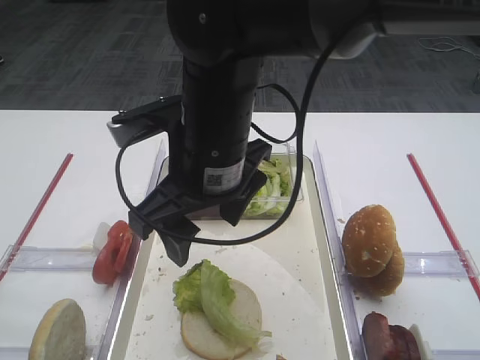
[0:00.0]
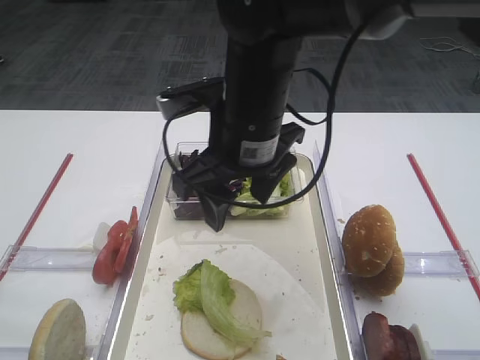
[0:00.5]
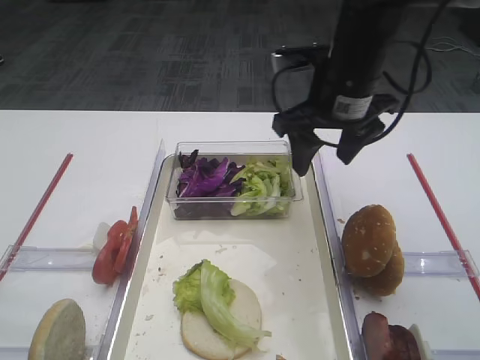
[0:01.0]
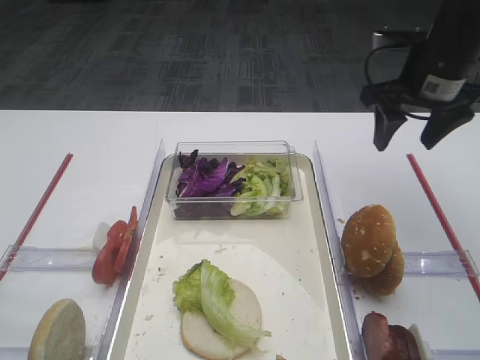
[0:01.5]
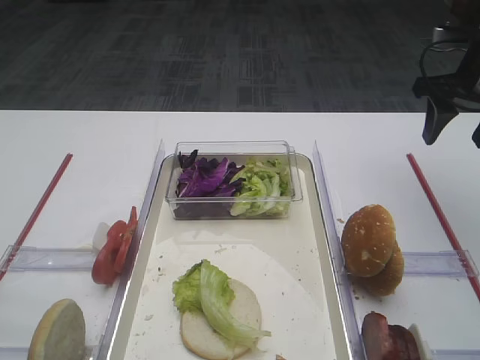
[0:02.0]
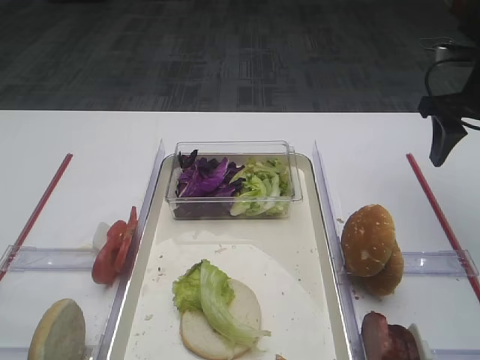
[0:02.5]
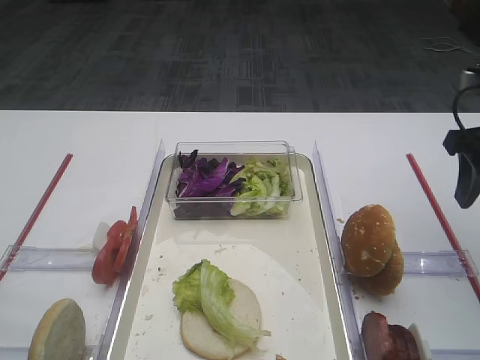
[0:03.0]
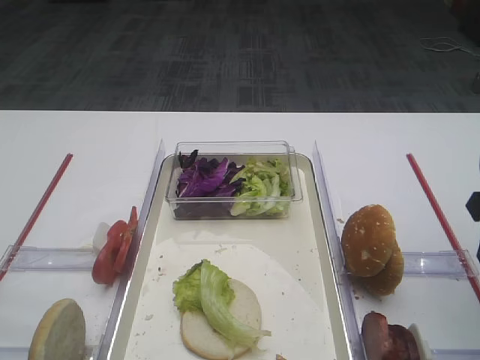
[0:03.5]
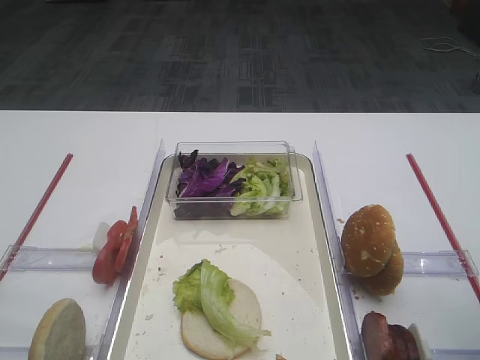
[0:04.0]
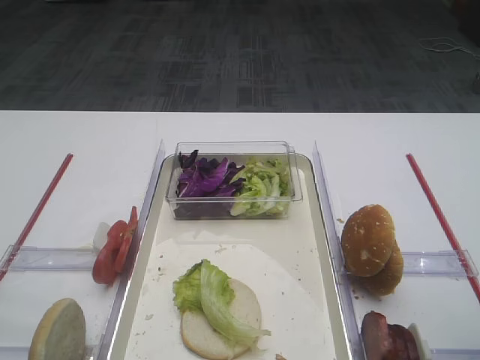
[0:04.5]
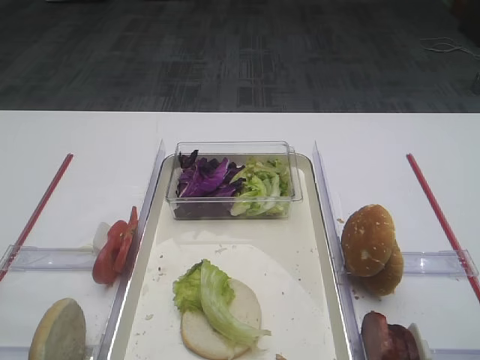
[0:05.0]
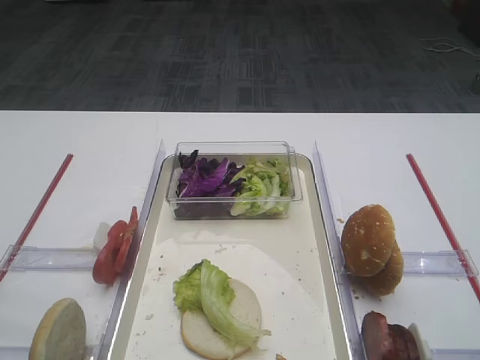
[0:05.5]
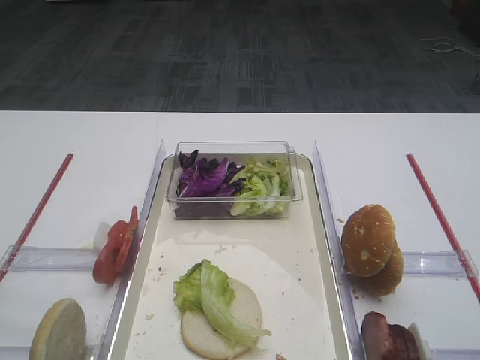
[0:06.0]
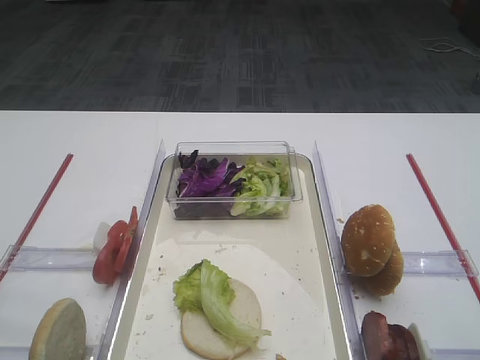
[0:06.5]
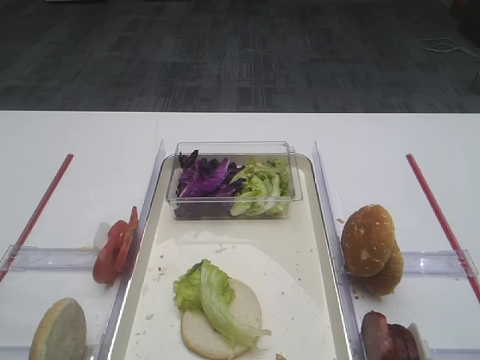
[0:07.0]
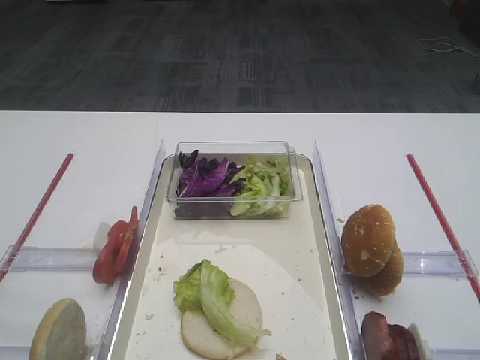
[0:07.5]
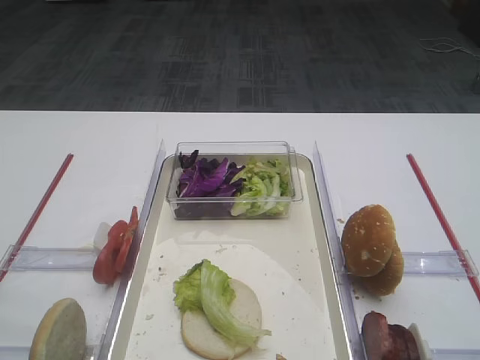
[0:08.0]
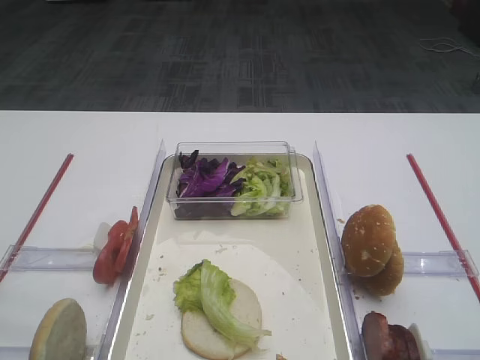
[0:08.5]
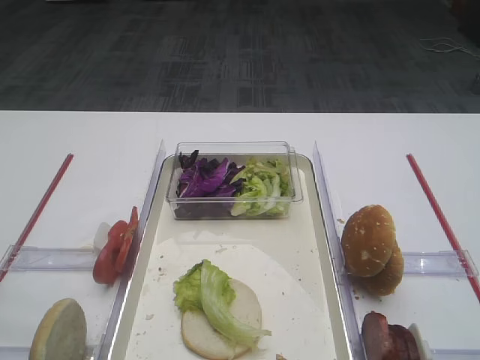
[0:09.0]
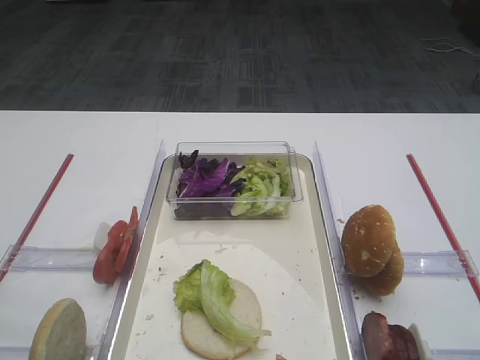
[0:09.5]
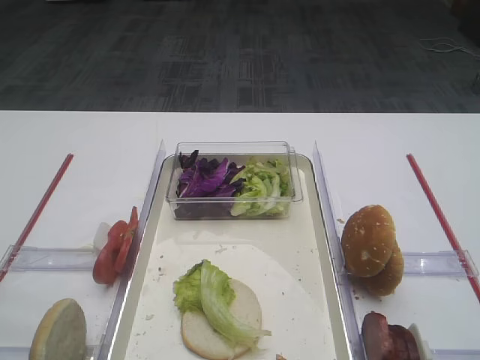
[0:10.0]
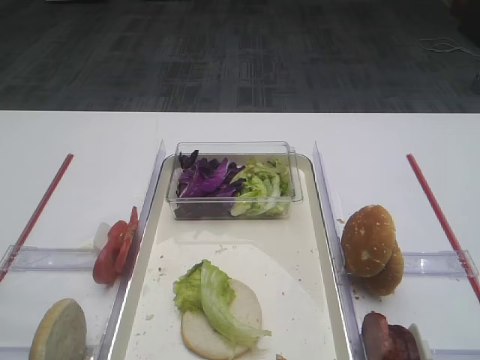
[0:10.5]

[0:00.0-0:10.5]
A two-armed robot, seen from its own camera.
0:00.0 to 0:02.0: The right gripper heads to the right and forward, covering about 35 cm.
0:02.0 to 0:04.0: The right gripper shifts about 25 cm backward.
0:04.0 to 0:06.5: The right gripper moves backward, some 10 cm.
0:08.5 to 0:10.5: The two grippers keep their place.

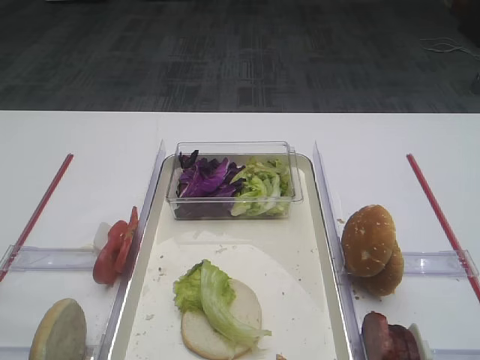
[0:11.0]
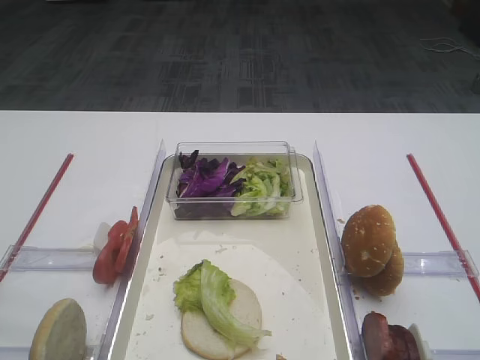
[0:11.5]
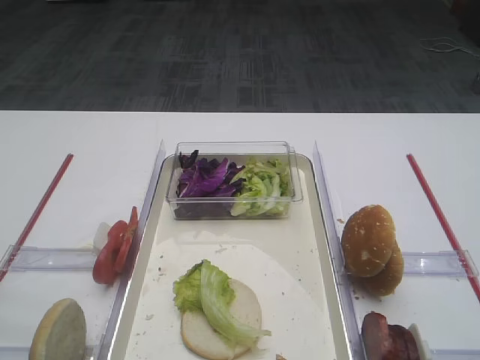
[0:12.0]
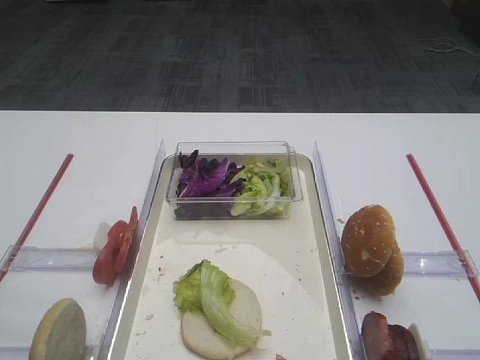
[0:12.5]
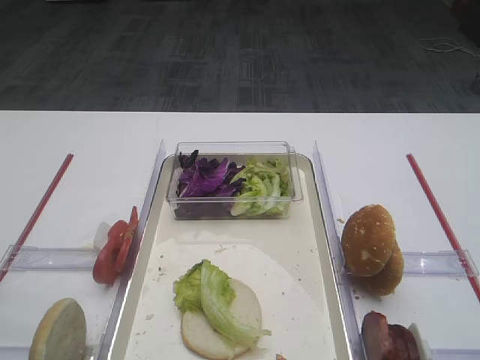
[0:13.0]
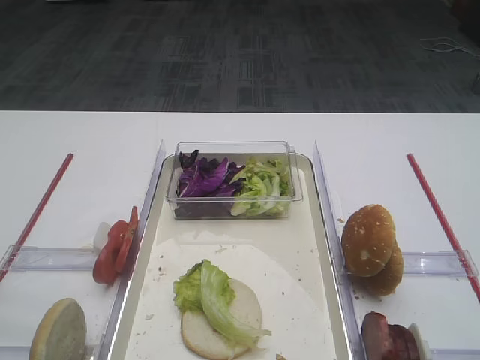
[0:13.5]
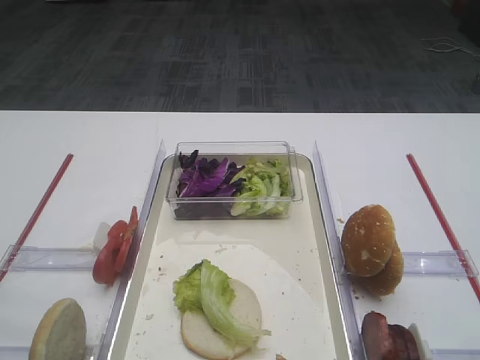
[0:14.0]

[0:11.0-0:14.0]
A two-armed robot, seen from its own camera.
0:11.0 to 0:14.0: Neither gripper changes place.

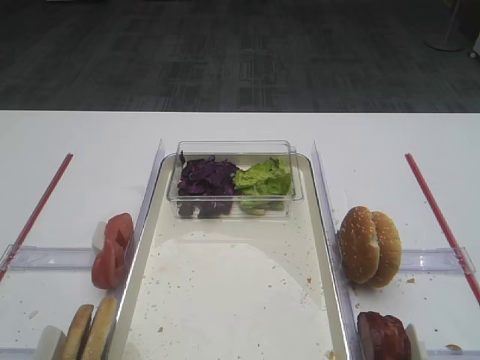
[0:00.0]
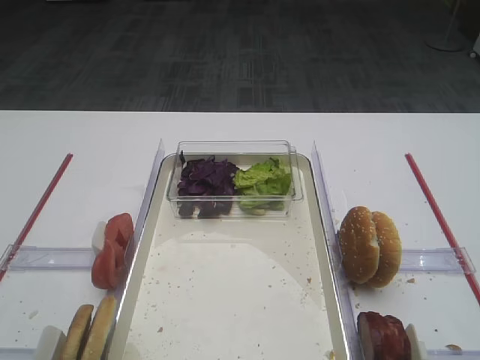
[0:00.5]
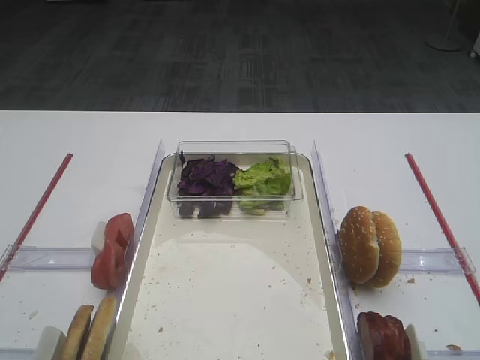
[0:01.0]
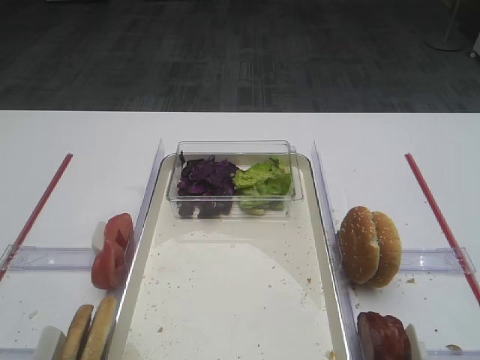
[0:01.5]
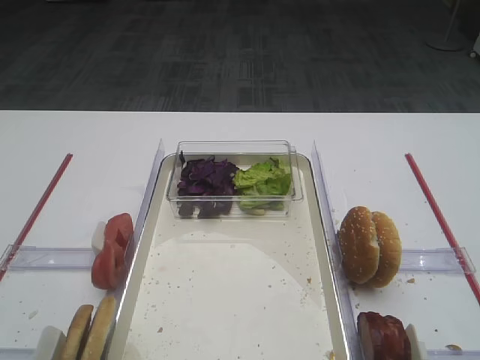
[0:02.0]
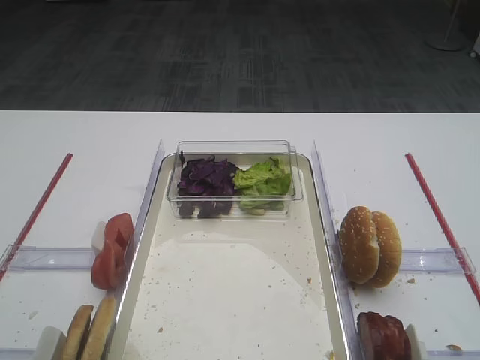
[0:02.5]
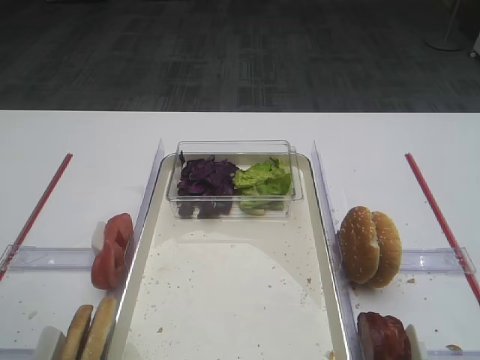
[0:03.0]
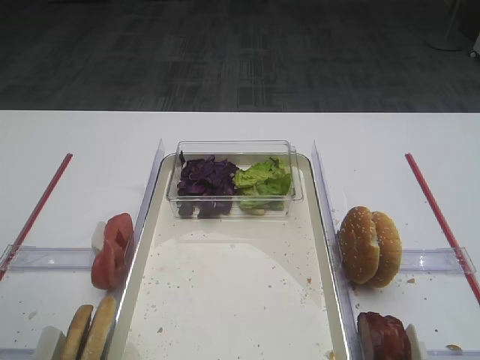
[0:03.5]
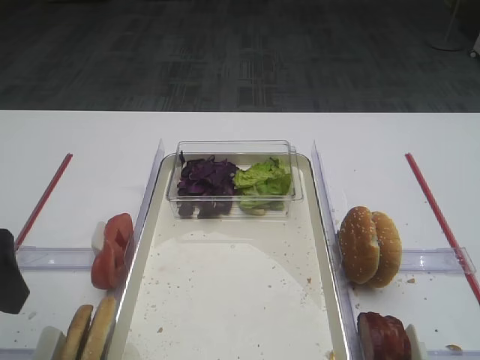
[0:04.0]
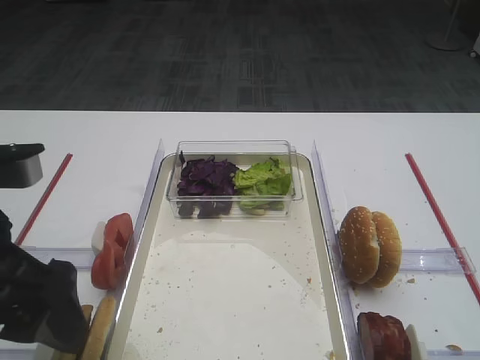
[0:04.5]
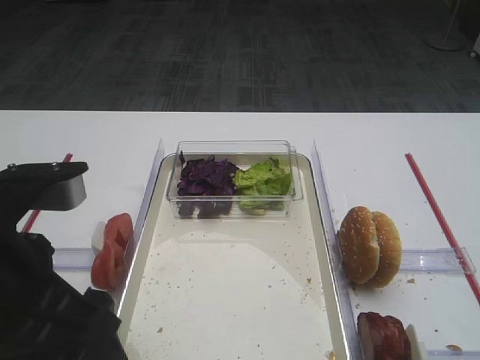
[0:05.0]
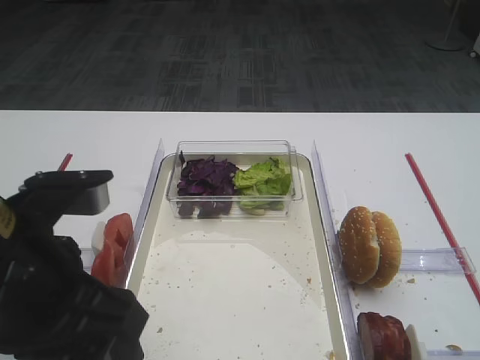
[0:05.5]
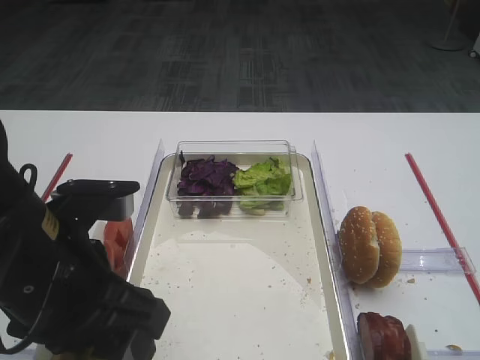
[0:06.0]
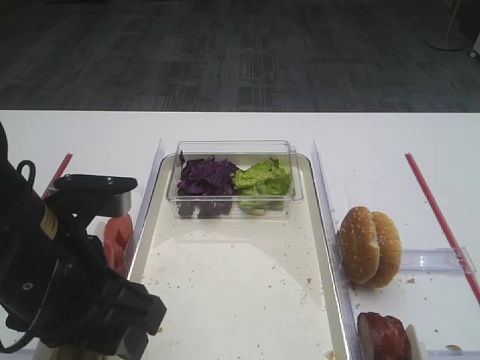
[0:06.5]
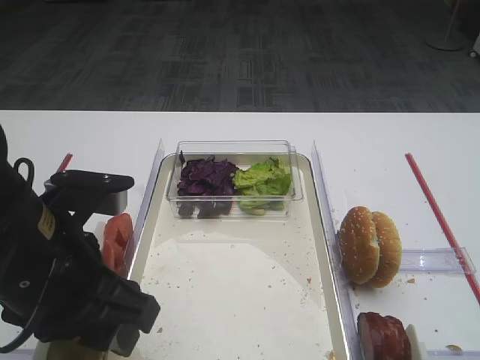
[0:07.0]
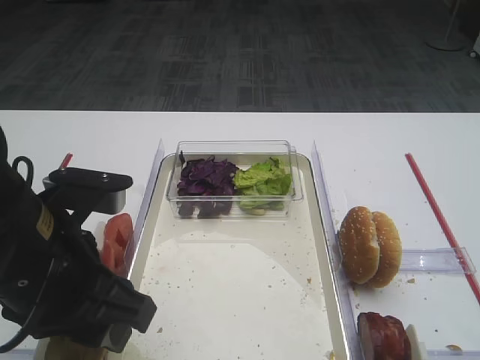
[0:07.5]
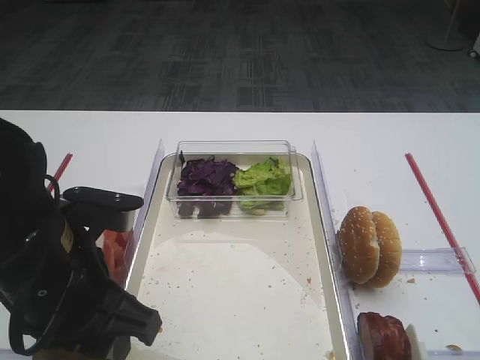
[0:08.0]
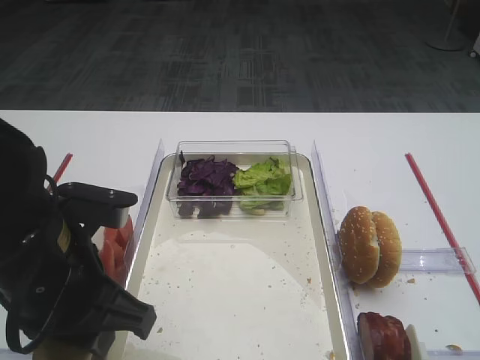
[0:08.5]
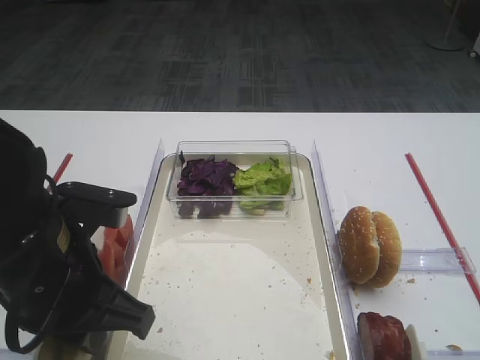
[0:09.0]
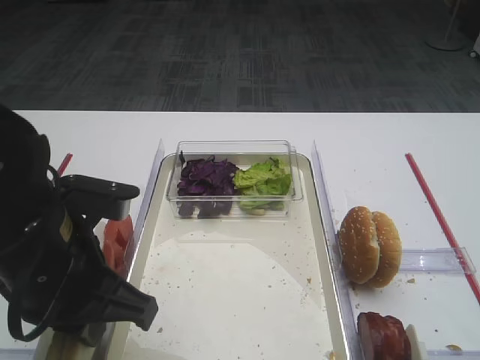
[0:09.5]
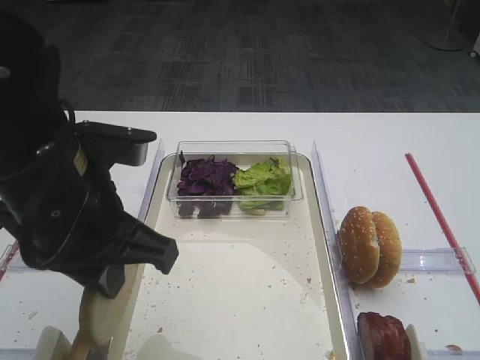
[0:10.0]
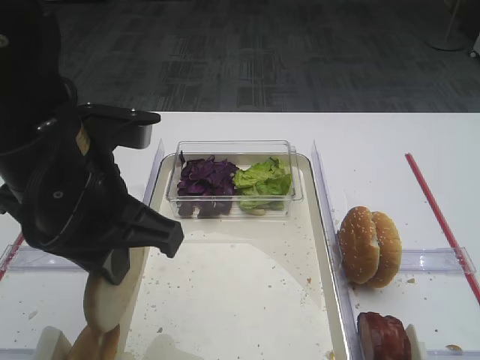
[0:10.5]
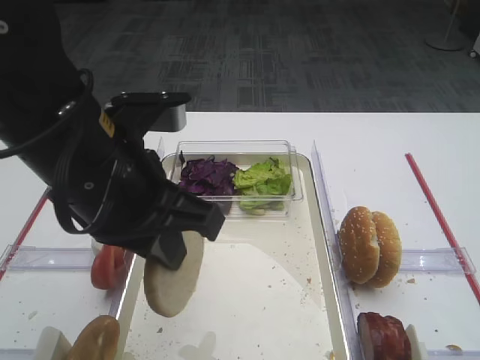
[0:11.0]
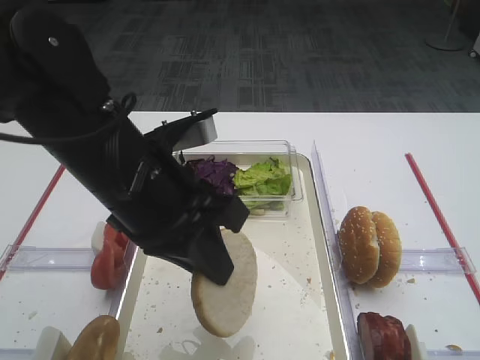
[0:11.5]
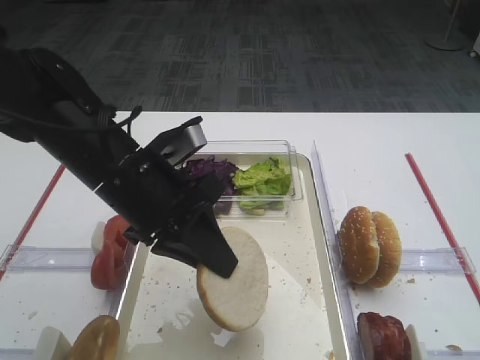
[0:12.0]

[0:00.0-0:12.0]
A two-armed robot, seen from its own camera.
Step, 0:00.0 to 0:09.5: Pick up the bread slice with the left gripper.
0:02.0 to 0:04.0: The left gripper travels forward by about 15 cm.
0:04.0 to 0:06.0: The left gripper heads to the right, covering approximately 10 cm.
0:06.0 to 0:08.0: The grippers move only a little.
0:08.0 to 0:10.0: The left gripper travels upward by roughly 5 cm, and closes up.
0:10.0 to 0:12.0: The left gripper is displaced forward by roughly 5 cm.
